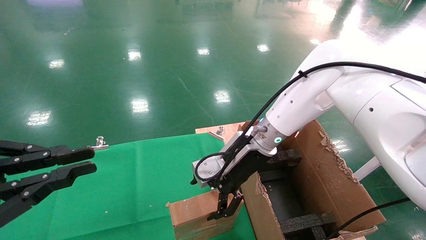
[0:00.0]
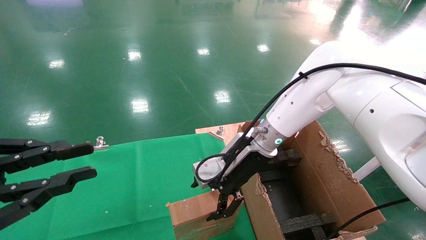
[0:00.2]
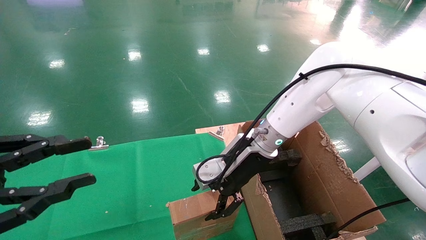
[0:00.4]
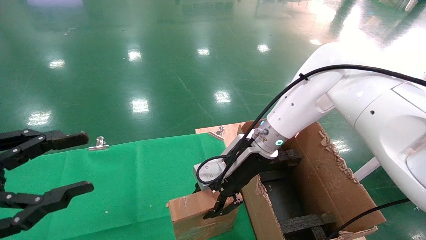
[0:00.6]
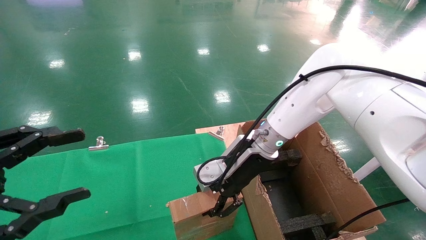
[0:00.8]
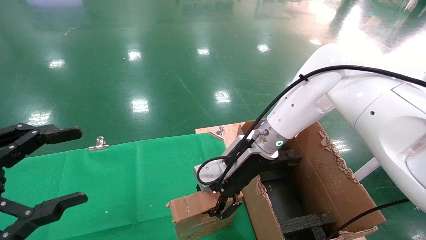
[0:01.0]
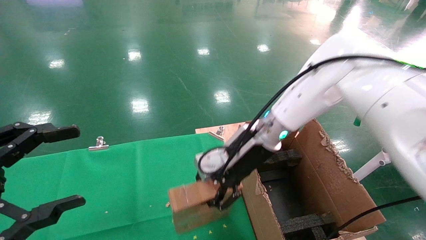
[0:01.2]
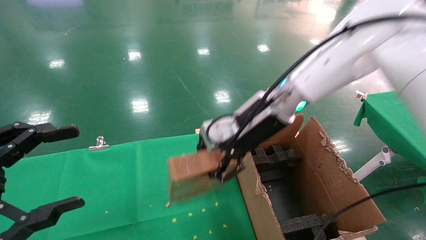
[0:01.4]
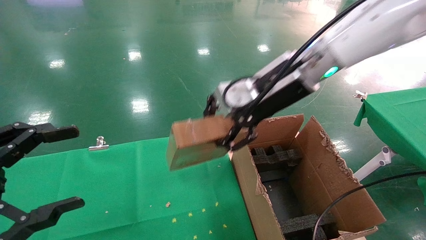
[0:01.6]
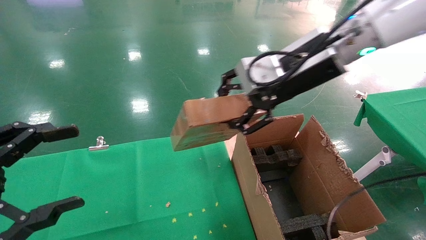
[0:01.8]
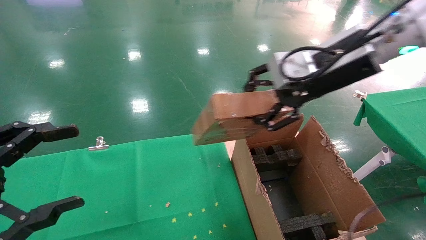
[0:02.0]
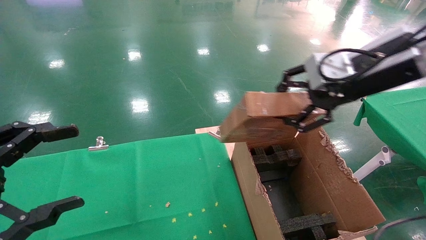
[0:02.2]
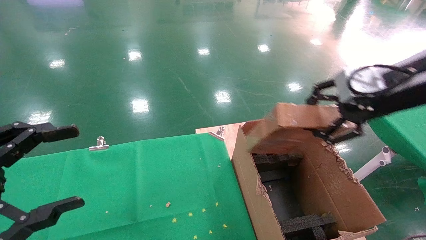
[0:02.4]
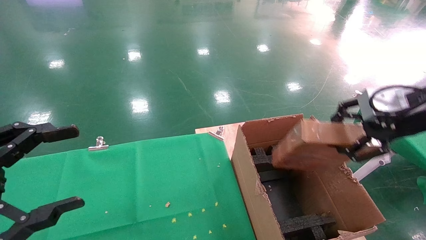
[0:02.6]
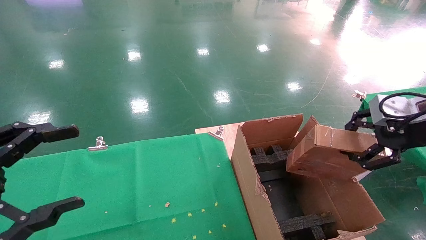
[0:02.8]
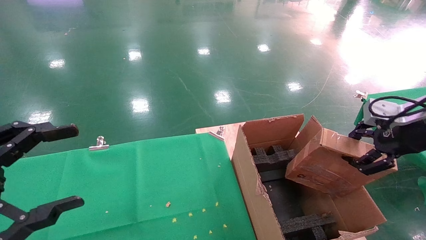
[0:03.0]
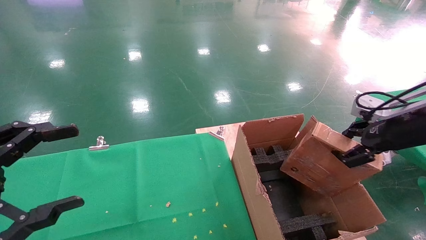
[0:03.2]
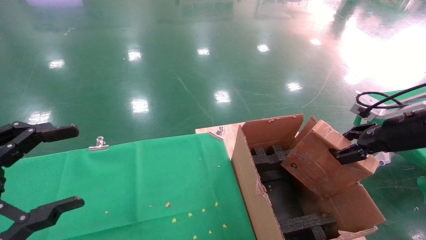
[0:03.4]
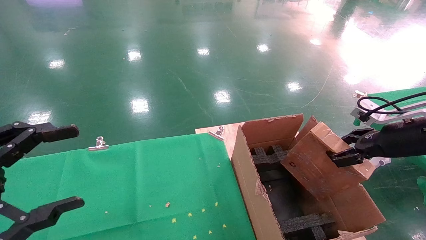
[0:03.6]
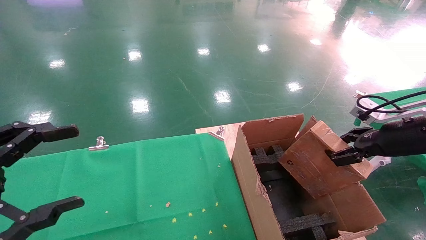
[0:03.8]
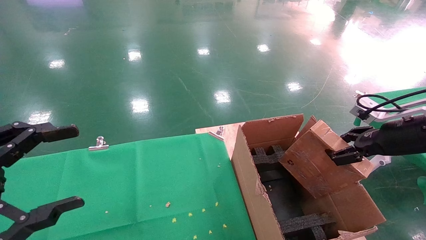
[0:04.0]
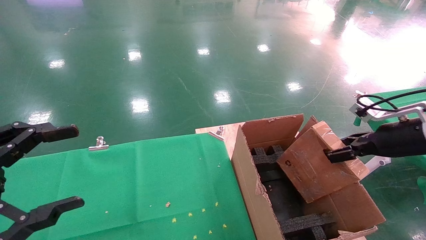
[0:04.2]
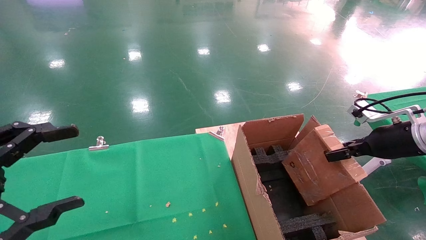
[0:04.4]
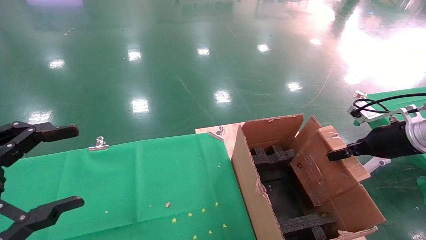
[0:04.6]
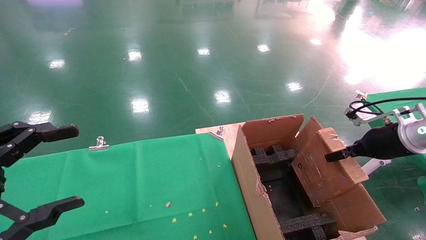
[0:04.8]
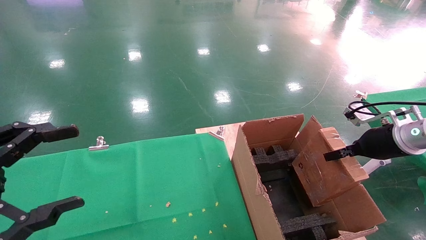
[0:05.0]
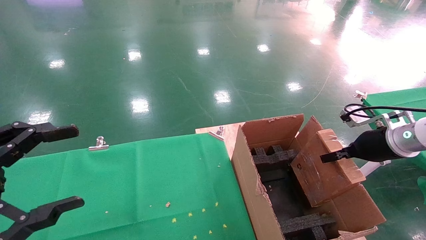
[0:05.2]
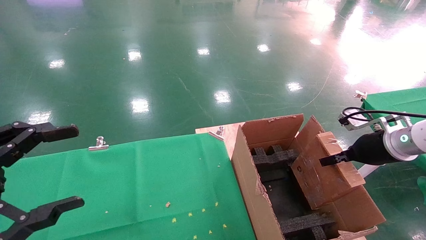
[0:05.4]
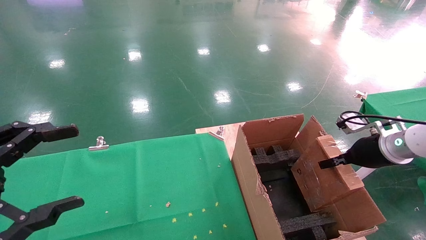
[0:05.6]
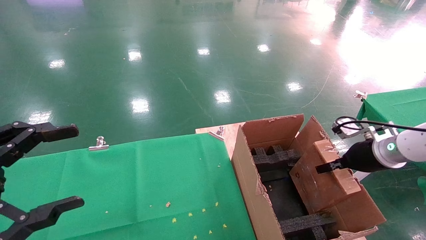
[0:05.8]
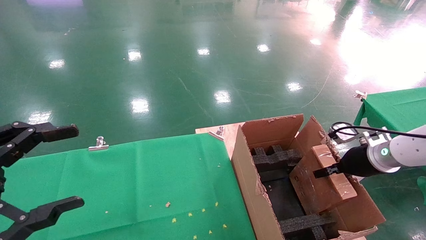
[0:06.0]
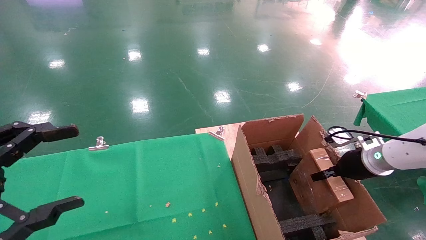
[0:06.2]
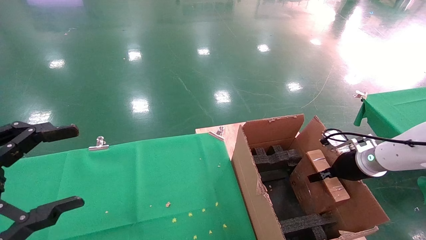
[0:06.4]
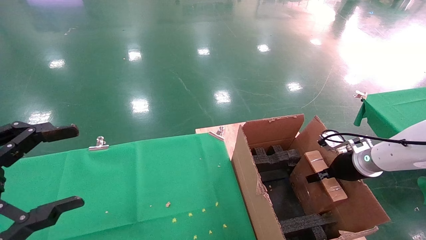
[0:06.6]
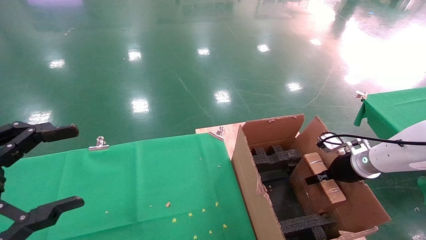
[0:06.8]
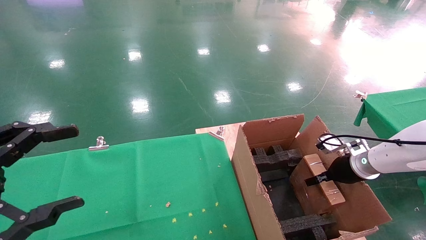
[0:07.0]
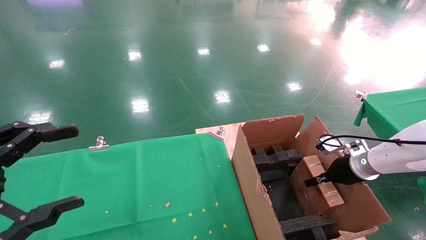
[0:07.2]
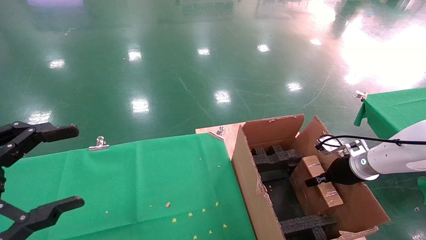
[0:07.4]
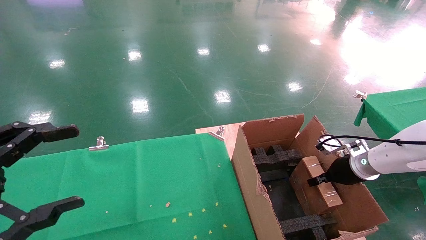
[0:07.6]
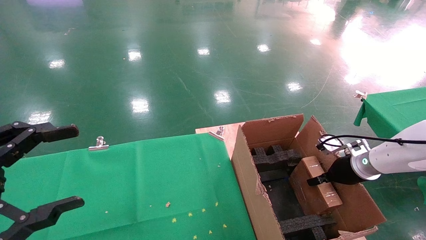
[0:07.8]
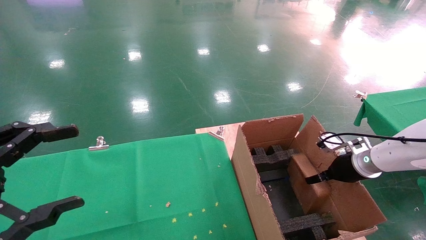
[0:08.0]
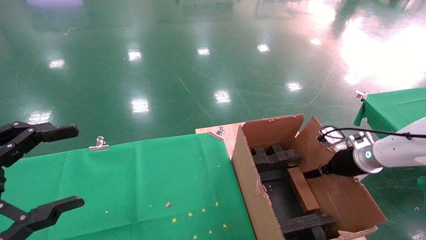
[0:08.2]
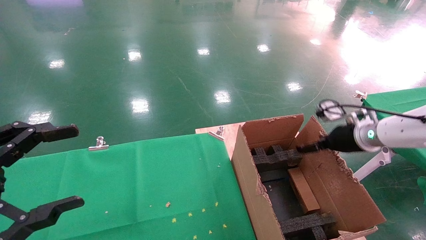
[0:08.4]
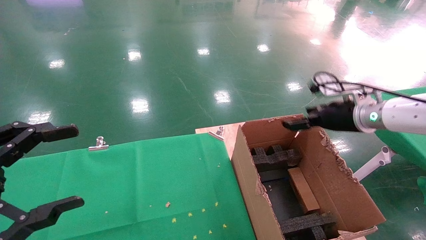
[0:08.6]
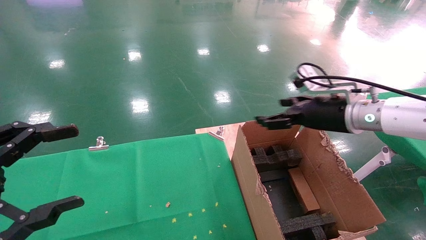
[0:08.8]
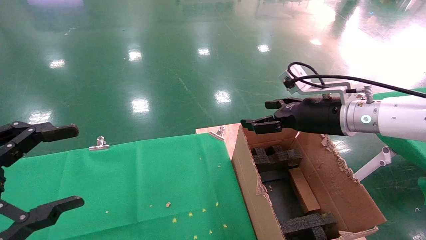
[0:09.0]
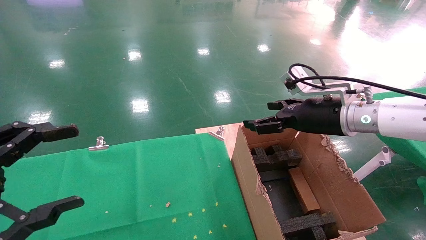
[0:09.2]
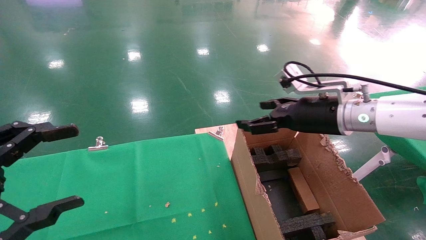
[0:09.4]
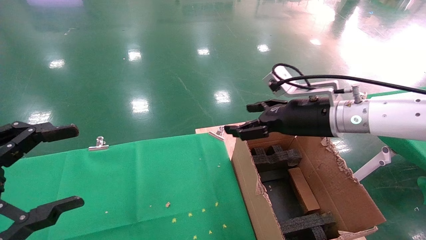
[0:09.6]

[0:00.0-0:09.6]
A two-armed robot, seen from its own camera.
Task of the whole recording: using a robotic arm to pick up a cardboard box and palace it the carton.
Step, 0:01.2 to 0:08.6: Place the mouse and the power cord paper box into the container.
0:00.0 to 0:01.6: The right gripper heads upward, covering some 15 cm, and closes. Meanwhile the left gripper opens up.
0:01.6 to 0:03.2: The right gripper goes roughly 25 cm to the right.
0:03.2 to 0:04.8: The right gripper goes roughly 5 cm downward.
0:04.8 to 0:06.4: The right gripper shifts approximately 10 cm downward.
0:06.4 to 0:08.0: The right gripper opens its fingers.
0:08.0 to 0:09.6: The right gripper is displaced to the left and upward by some 20 cm, and opens its fingers.

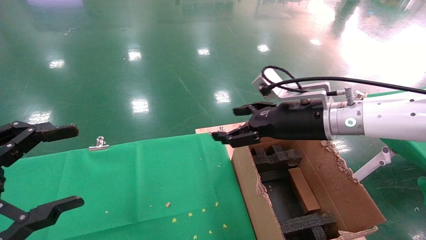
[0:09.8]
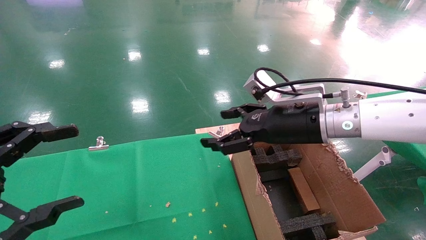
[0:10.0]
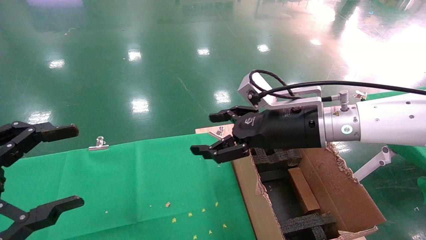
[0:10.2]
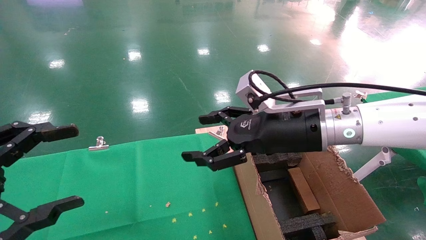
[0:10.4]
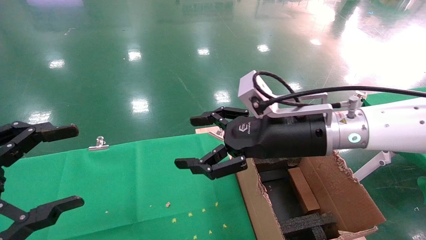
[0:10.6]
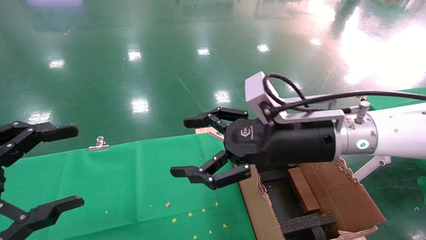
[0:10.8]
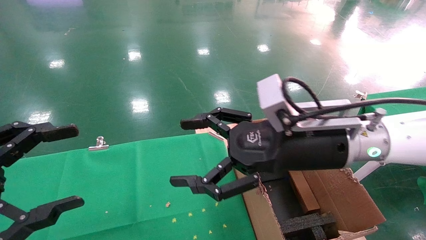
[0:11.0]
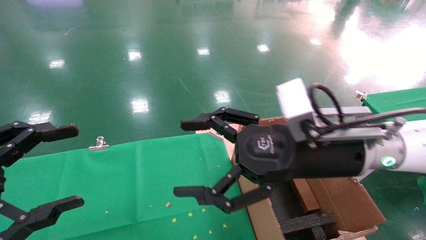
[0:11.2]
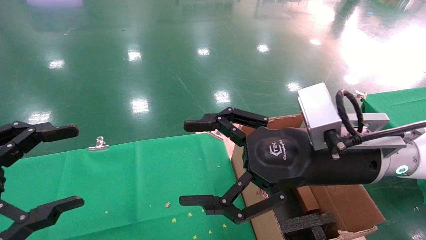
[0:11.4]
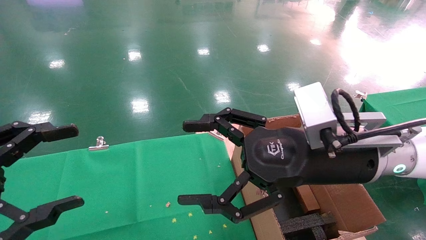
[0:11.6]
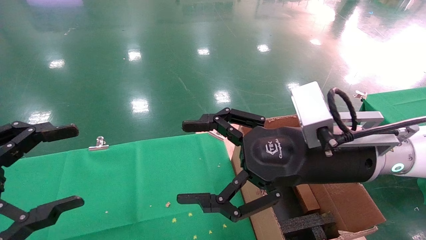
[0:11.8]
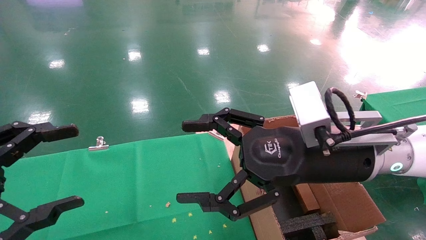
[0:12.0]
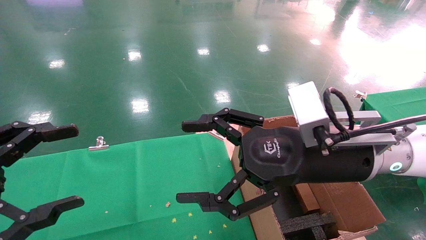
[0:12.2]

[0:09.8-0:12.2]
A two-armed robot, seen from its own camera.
Task of the whole recording: using a robotic arm to pick up a cardboard box and palace it the carton.
0:09.8 to 0:11.0: The right gripper moves backward, approximately 5 cm.
0:11.0 to 0:12.2: The grippers make only small movements.
